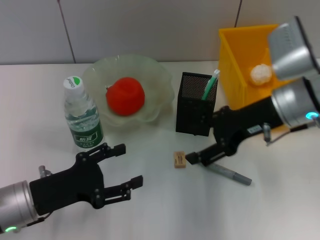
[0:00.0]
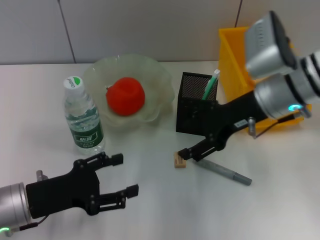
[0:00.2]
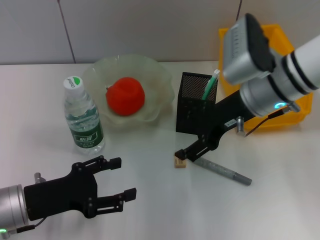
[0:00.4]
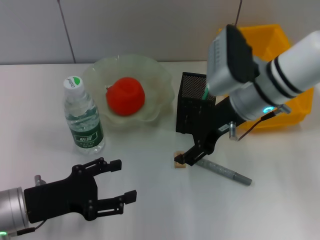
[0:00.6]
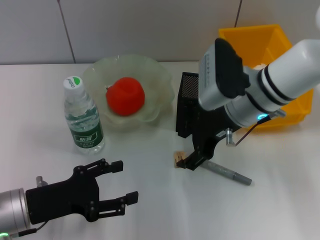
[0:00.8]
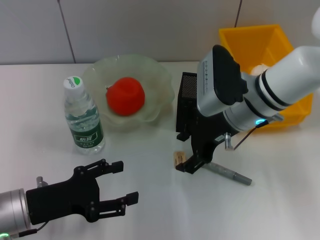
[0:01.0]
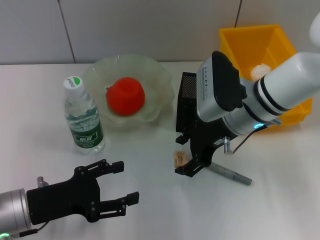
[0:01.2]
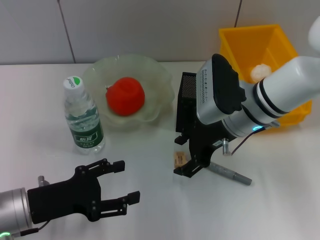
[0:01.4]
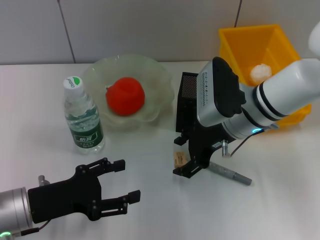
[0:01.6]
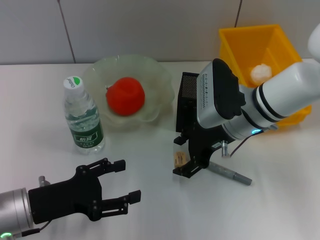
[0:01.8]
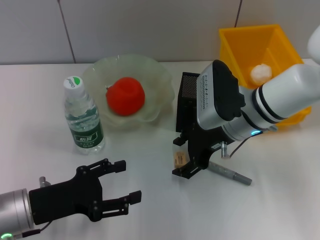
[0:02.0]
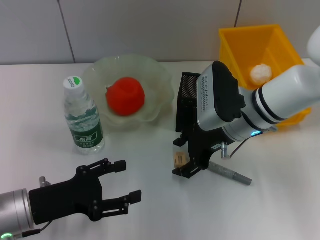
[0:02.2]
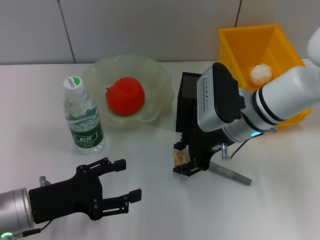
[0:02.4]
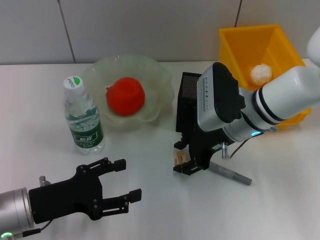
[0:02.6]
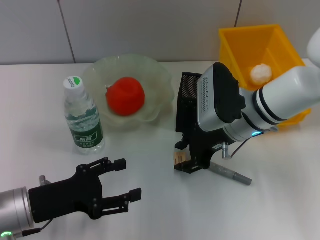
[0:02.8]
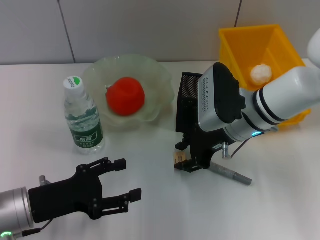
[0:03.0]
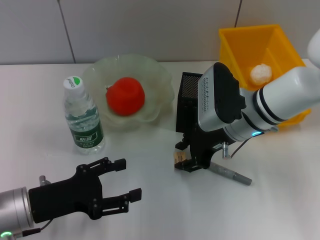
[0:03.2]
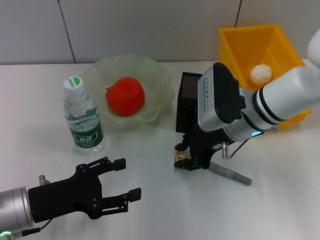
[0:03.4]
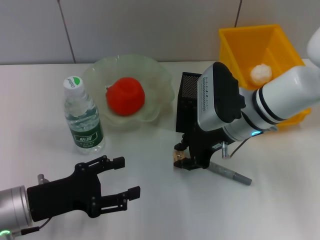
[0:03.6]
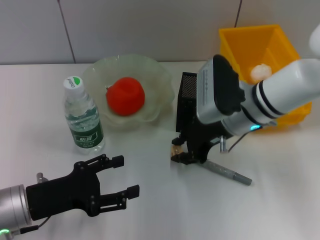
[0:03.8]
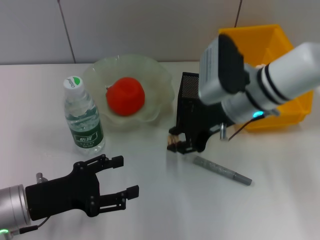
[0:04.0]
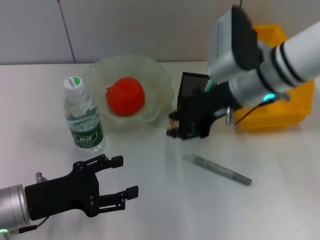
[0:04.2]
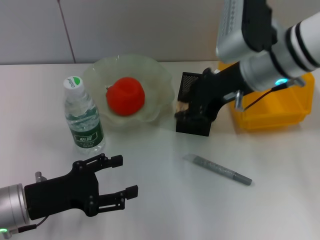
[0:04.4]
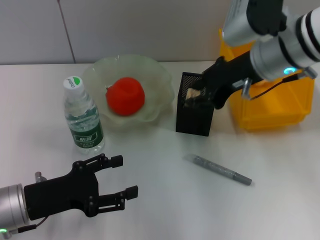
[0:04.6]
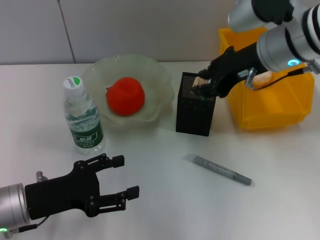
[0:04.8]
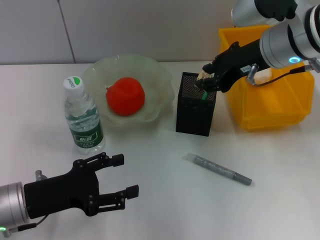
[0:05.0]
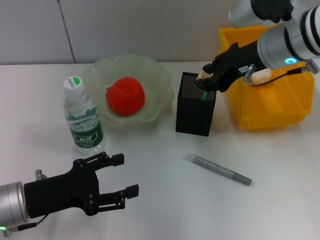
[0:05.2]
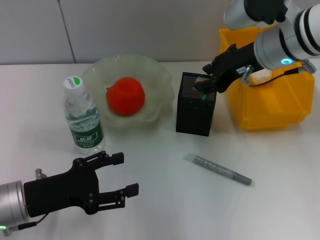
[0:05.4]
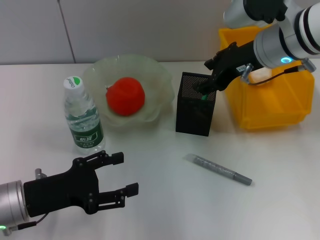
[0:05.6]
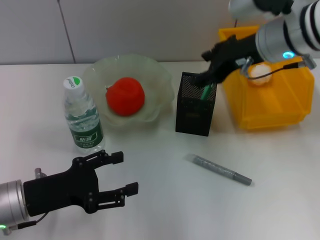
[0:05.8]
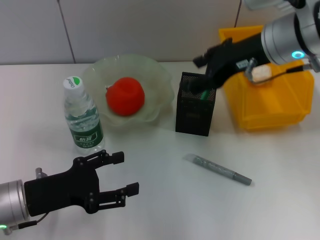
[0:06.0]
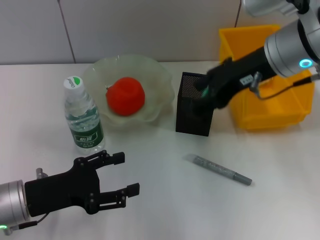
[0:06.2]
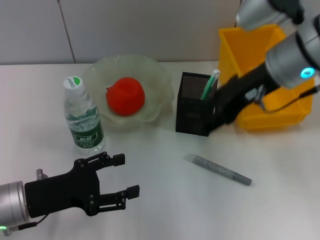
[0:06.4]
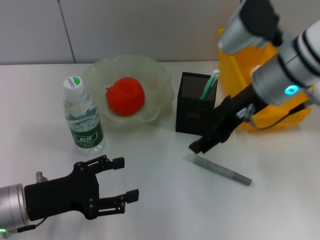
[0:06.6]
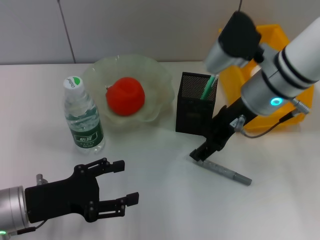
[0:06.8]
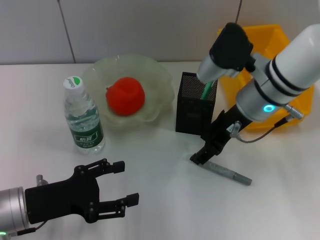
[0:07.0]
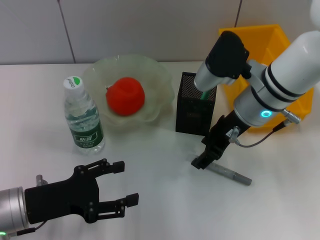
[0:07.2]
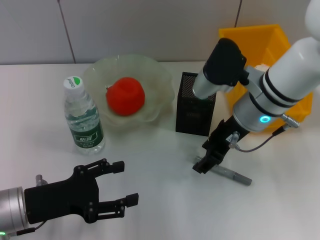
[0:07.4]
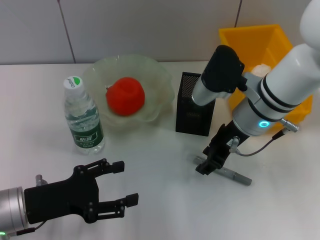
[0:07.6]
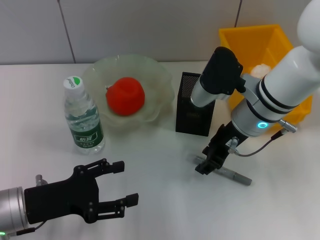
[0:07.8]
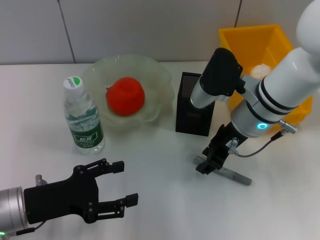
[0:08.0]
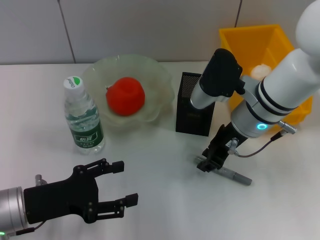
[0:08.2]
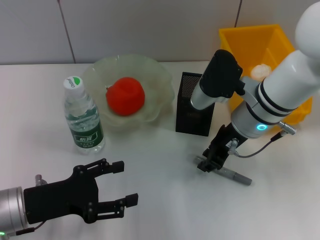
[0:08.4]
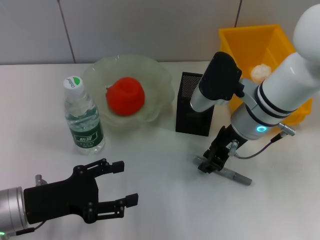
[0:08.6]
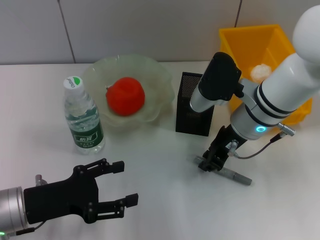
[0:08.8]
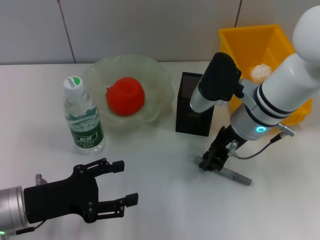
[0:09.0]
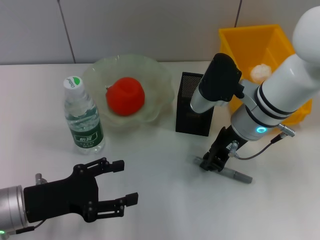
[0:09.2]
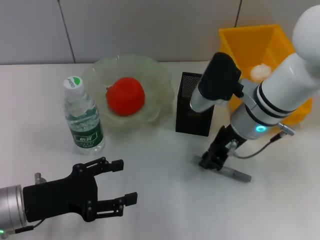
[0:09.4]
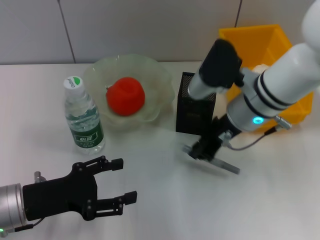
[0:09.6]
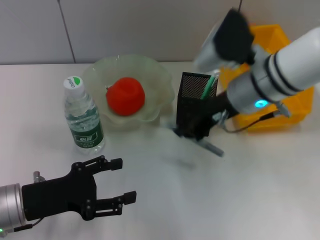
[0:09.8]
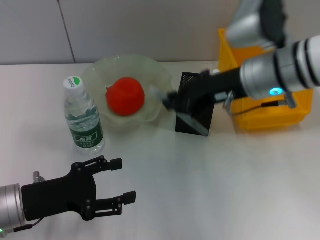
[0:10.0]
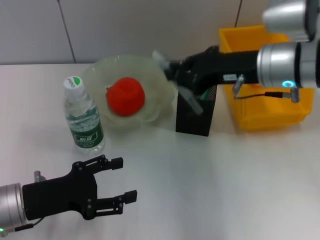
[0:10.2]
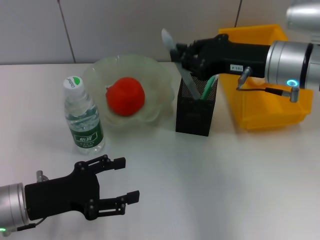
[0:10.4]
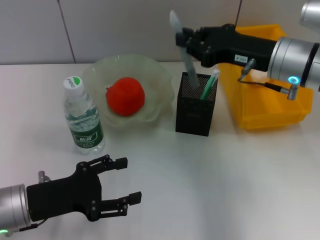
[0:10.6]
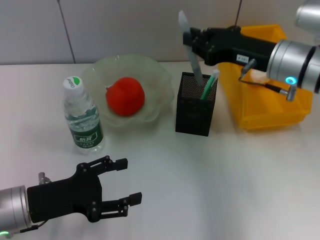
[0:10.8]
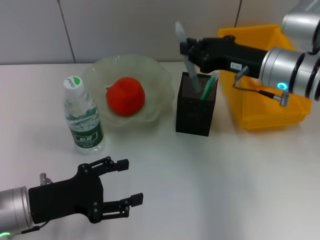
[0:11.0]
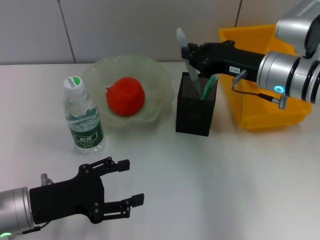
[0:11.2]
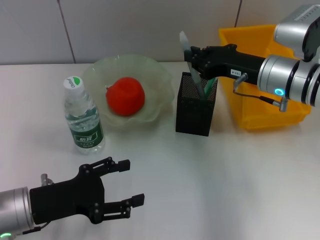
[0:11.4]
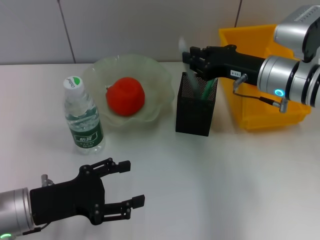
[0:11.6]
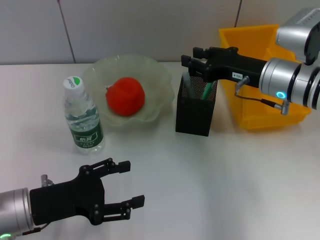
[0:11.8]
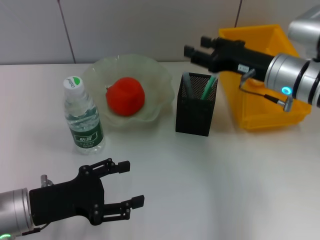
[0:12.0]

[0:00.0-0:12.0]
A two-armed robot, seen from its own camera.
Step, 0:00.0 to 0:03.4: Grab the eraser with the right hand.
Step, 0:03.6 to 0:05.6: Put the eraser into the pen holder with the right hand.
Step, 0:05.8 to 0:09.2: Grab the gray glue with the right hand.
Step, 0:09.4 to 0:11.6: Place the gray glue into the pen holder with the right hand.
0:00.0 to 0:01.6: The right gripper is displaced to the left by some 5 cm.
0:01.6 to 0:03.0: The right gripper closes.
0:03.0 to 0:04.4: The right gripper is displaced upward by roughly 10 cm.
0:04.4 to 0:06.0: The right gripper opens up.
0:06.0 to 0:07.6: The right gripper shifts about 10 cm downward.
0:07.6 to 0:09.0: The right gripper closes its fingers.
0:09.0 to 0:10.4: The right gripper goes approximately 10 cm upward and to the right.
0:10.4 to 0:12.0: The right gripper ends up roughly 5 cm from where it was, and opens its fingers.

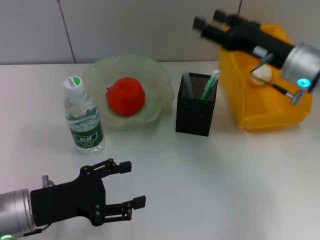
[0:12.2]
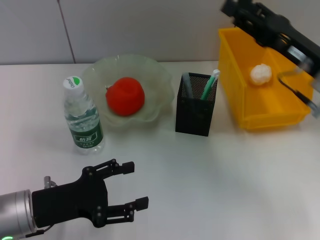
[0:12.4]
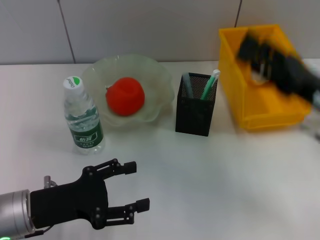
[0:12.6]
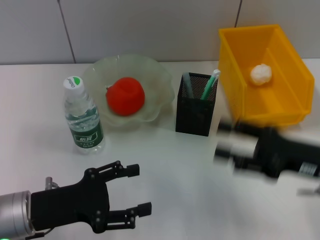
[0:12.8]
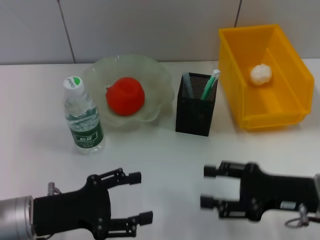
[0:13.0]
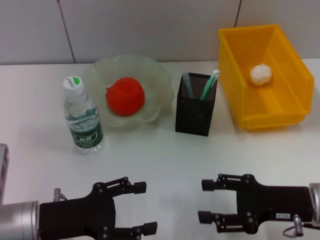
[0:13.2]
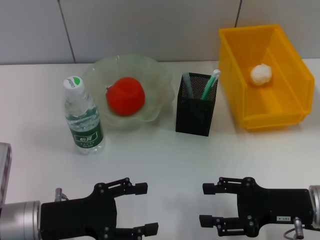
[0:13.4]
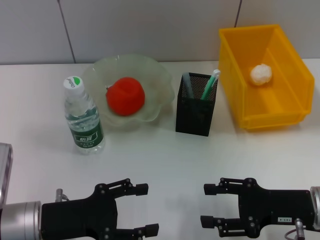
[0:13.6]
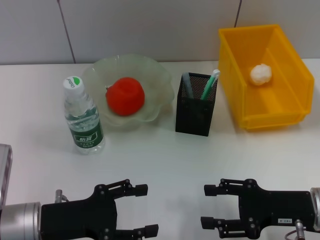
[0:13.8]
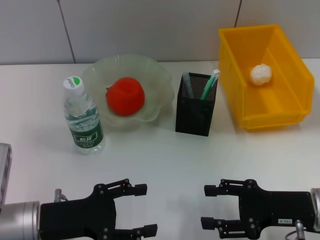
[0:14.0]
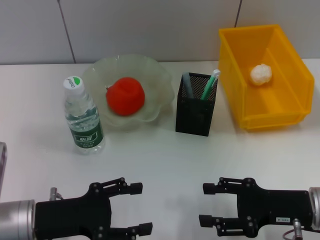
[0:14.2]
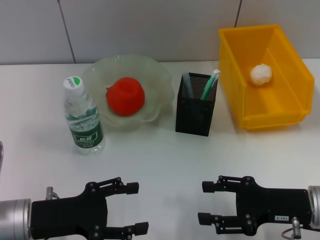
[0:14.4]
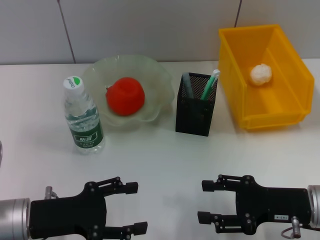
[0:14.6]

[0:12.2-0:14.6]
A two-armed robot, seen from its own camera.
0:12.2 to 0:13.4: The right gripper goes some 15 cm backward and downward.
0:13.4 to 0:14.6: Both grippers stay put.
